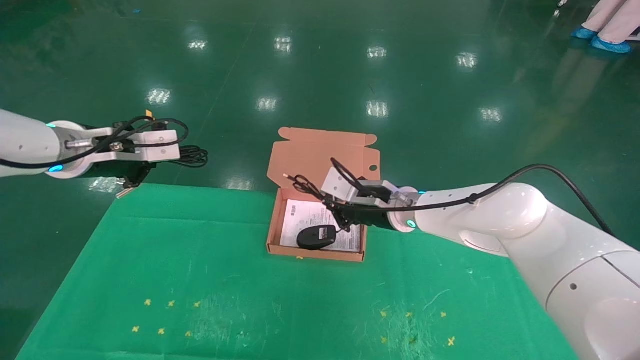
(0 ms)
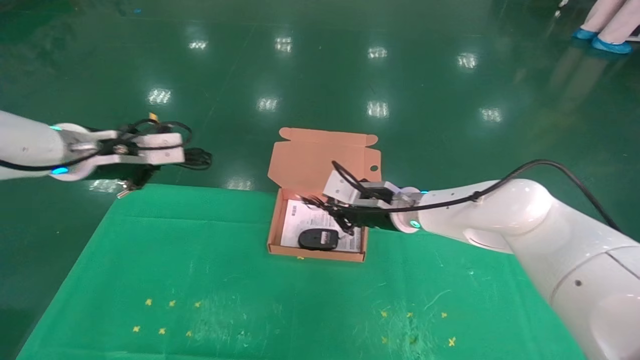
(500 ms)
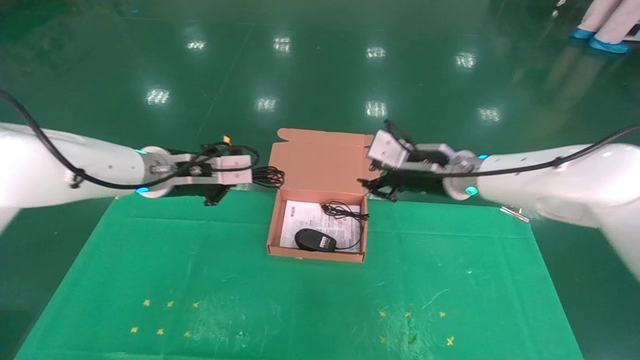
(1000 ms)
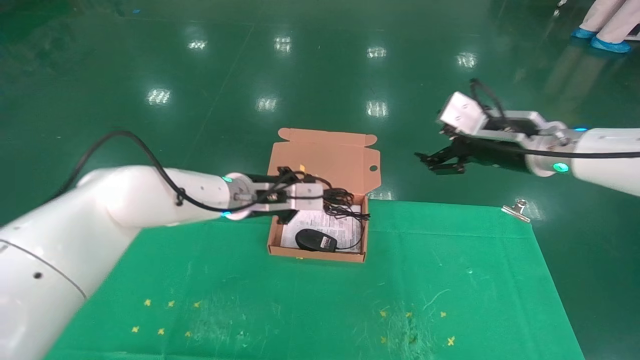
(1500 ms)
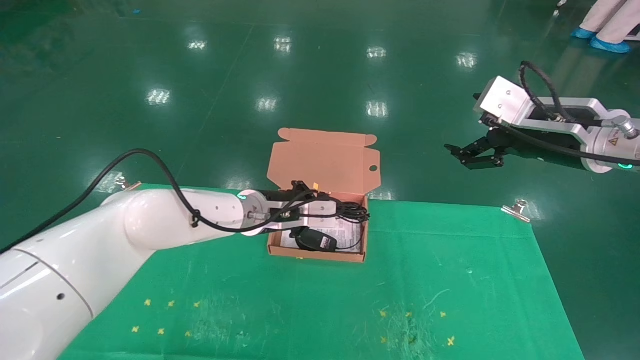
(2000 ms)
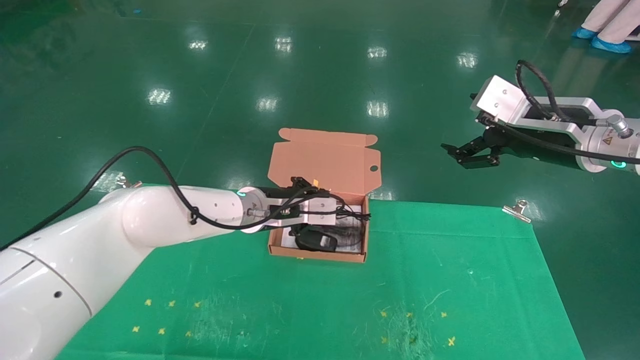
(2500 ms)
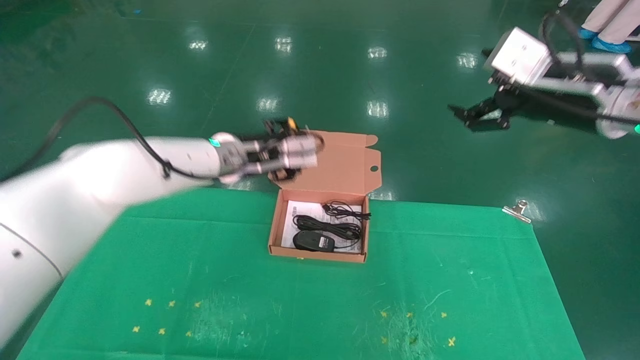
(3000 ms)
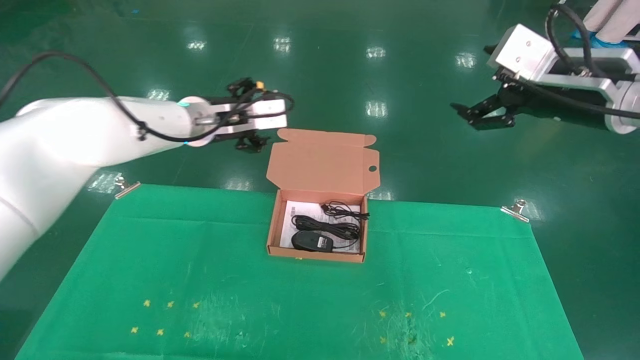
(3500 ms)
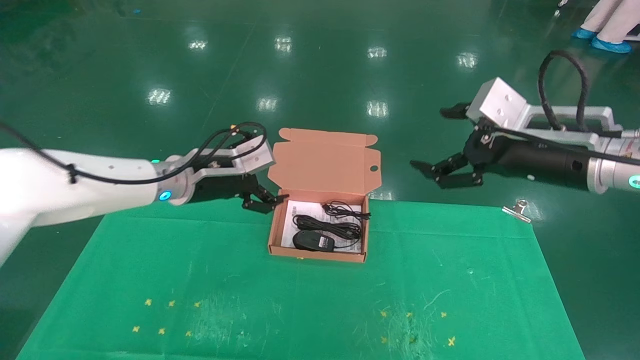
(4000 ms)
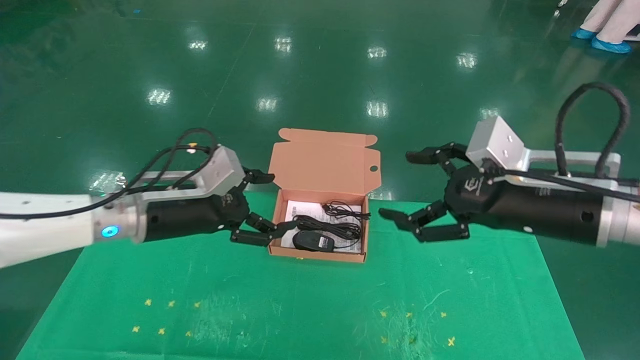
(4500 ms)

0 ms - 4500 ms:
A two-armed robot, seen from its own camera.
Task of the whole recording: grasp data cable left put into box grasp mouse right put into box.
Step, 0 ms - 2500 ms: Place the mouse and power cord into the box.
0 ms - 2000 ms: The left gripper heads to the right and downward, covering approximately 25 cm; the right gripper is displaced to the right, upward and backward by about 25 cm, and opens its fingers.
2000 ms - 4500 ms: The left gripper shifts approximately 15 cm to the left and backward, and opens up; the right gripper moves backward and downward, about 10 cm.
